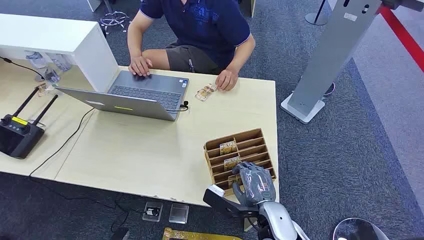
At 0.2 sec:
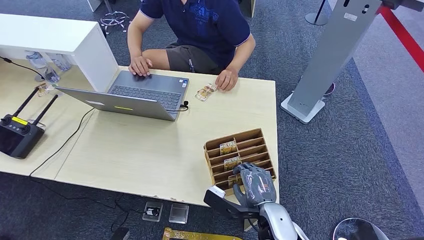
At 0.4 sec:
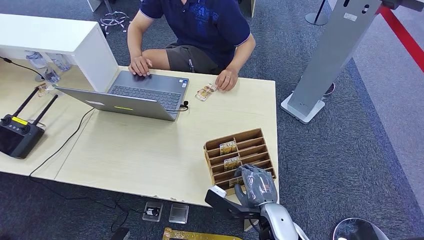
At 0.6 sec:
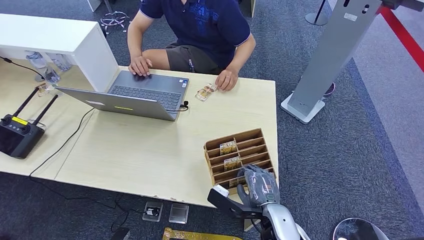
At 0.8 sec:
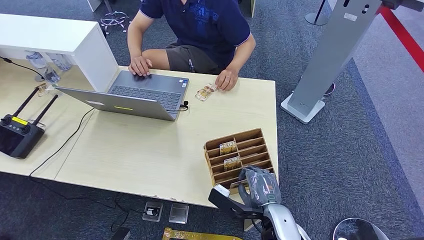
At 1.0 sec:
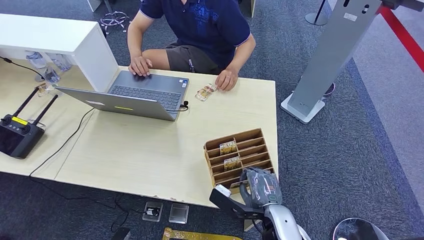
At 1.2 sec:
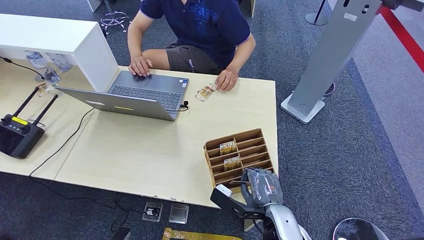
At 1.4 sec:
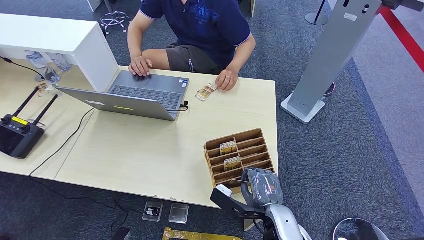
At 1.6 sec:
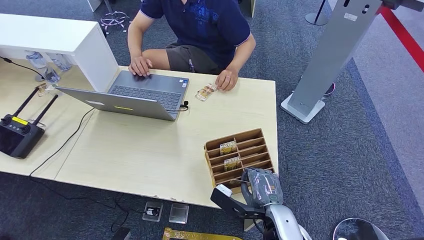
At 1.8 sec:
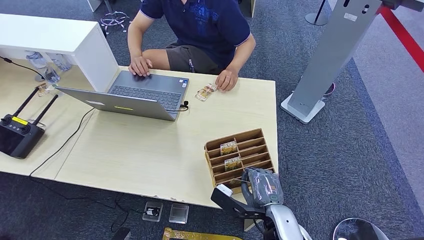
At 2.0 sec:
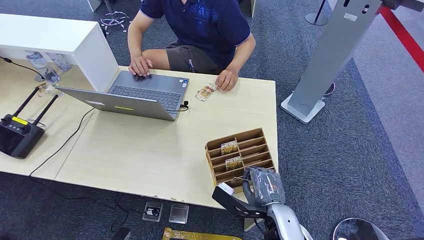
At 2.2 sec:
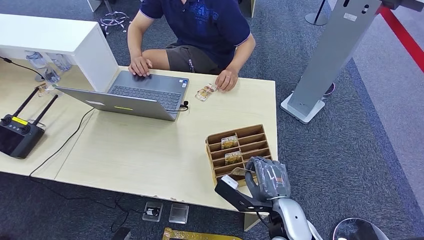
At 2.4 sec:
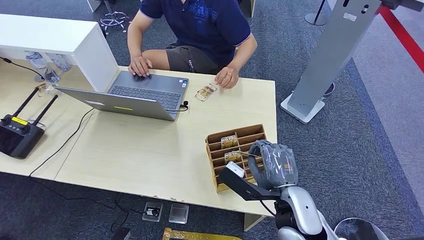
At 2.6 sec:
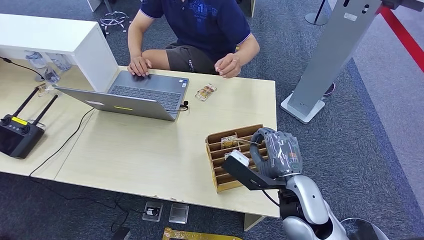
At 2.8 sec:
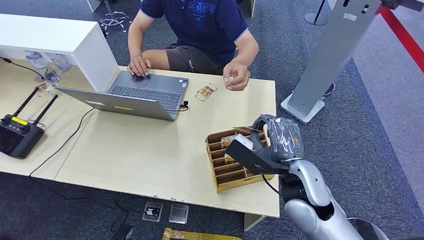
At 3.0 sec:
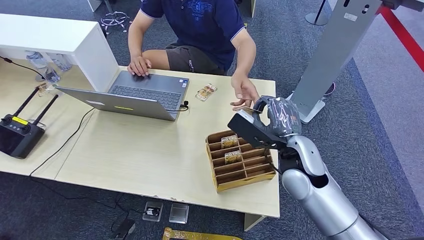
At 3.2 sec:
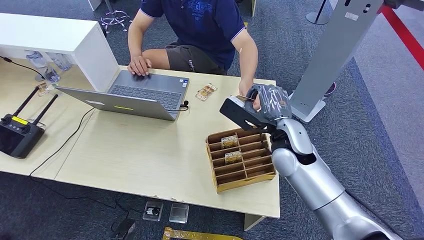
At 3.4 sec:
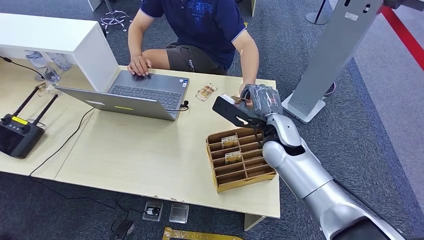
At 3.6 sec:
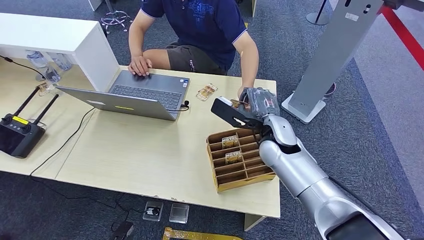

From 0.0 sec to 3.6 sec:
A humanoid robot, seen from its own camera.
Step, from 0.0 sec to 2.2 sec: Pick up the room card from the card holder.
Step, from 2.6 sec to 3.6 sec: Hand the room card to the target.
From 1.8 sec to 3.6 sec: The right hand travels forward and upward by about 20 cm.
